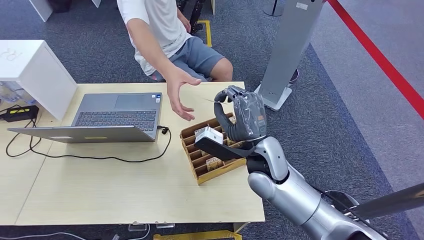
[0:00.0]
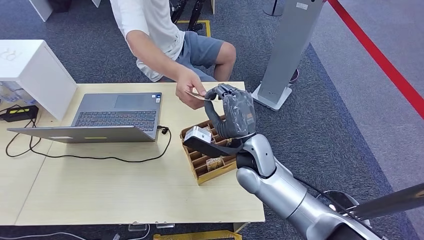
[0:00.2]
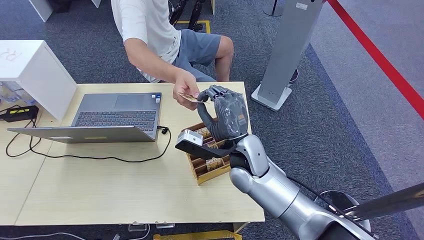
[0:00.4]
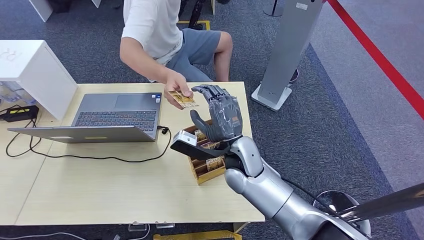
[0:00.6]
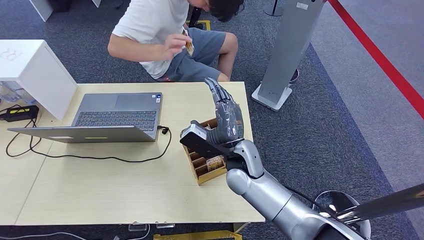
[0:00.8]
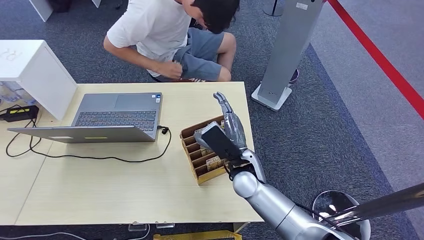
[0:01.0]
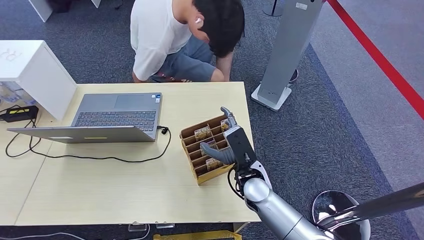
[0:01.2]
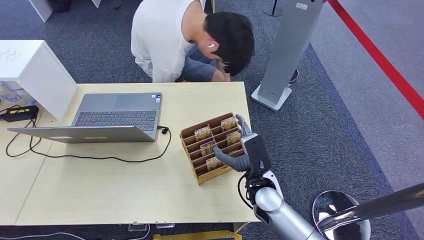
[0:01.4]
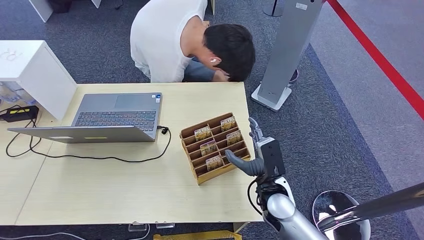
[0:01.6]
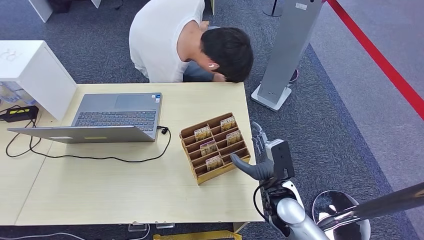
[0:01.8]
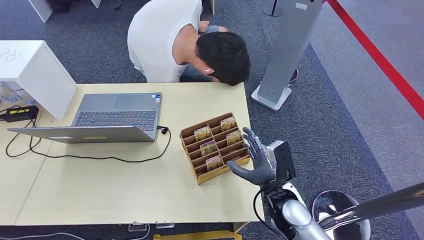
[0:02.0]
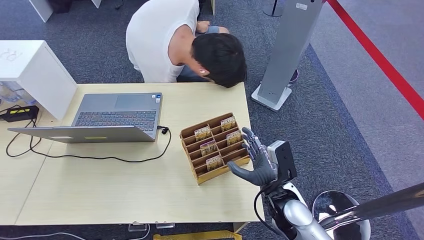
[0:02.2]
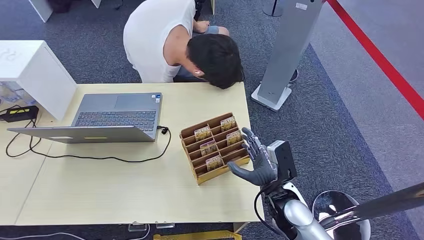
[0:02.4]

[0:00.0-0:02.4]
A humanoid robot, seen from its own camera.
Step, 0:00.0 to 0:02.2: Hand the room card to the target.
0:00.0 to 0:01.2: The right hand is displaced downward by approximately 10 cm.
0:01.2 to 0:02.4: The right hand heads to the right and backward, covering approximately 10 cm.
